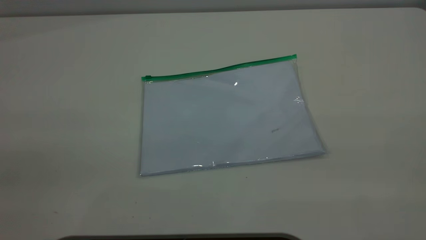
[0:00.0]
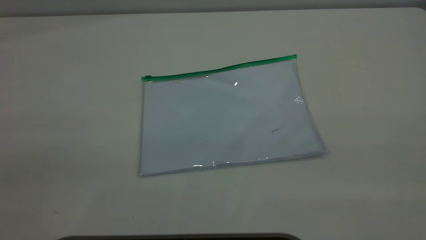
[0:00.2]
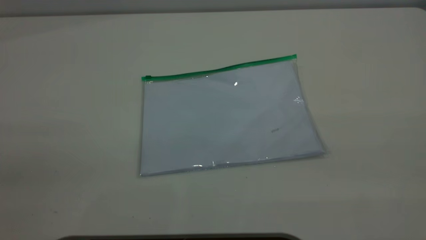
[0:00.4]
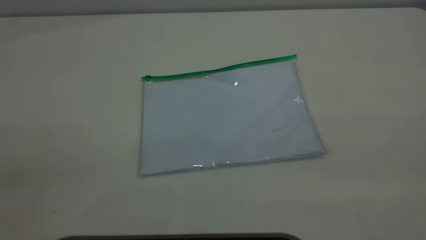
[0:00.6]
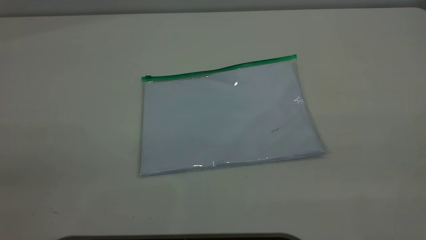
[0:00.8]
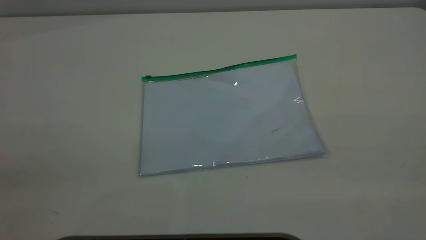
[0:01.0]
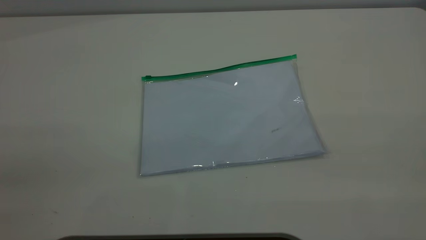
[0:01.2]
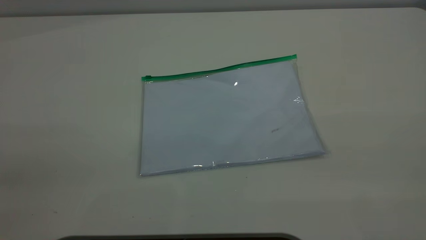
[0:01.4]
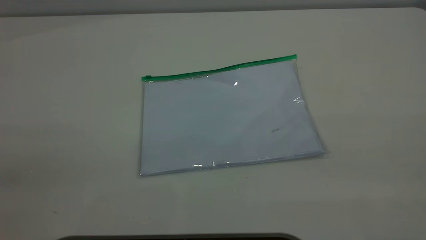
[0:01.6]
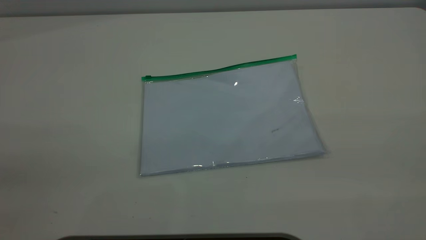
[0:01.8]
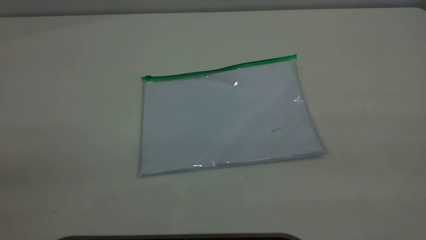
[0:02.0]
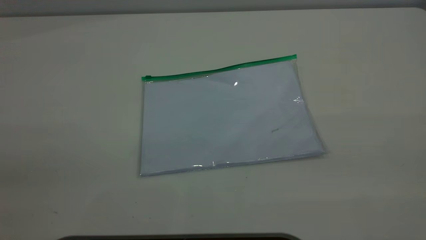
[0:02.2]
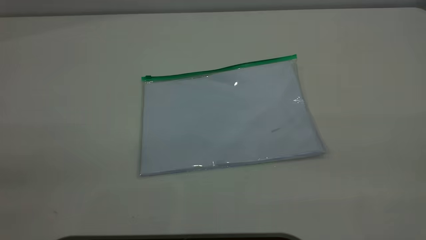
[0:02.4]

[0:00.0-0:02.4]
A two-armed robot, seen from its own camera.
0:01.2 to 0:02.4: The two grippers keep their place.

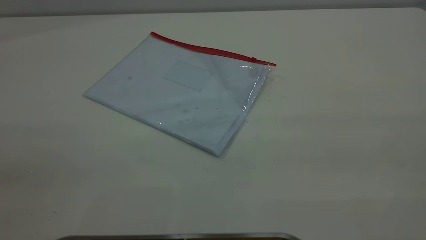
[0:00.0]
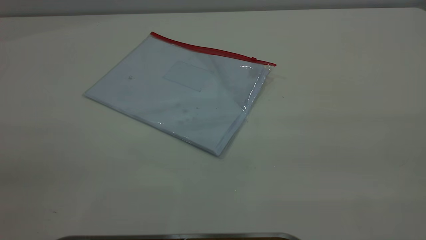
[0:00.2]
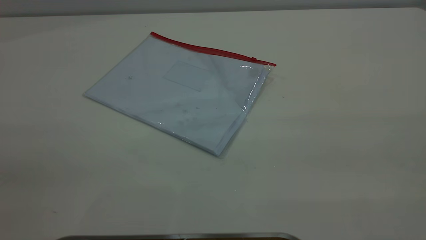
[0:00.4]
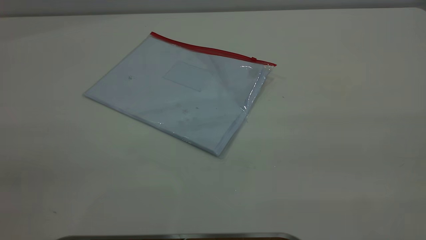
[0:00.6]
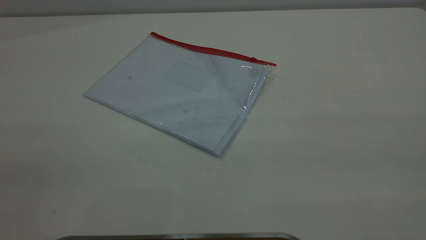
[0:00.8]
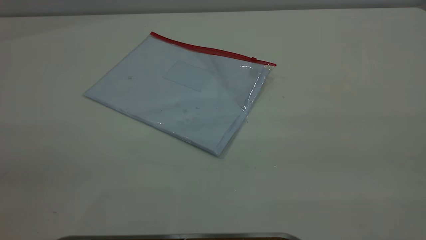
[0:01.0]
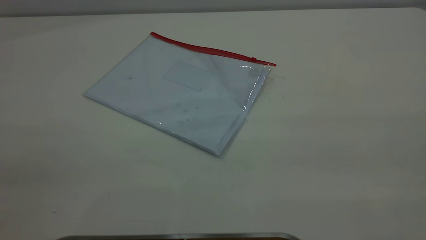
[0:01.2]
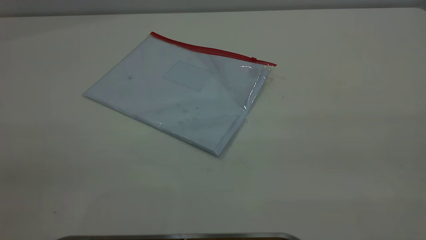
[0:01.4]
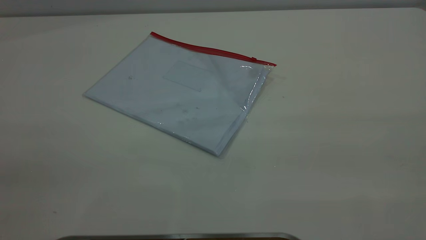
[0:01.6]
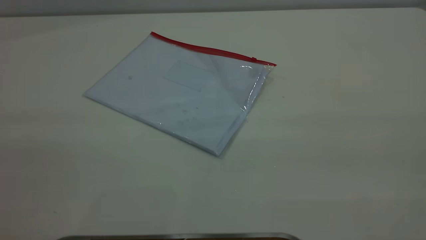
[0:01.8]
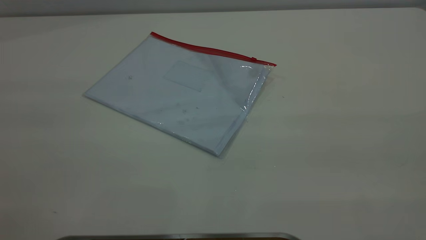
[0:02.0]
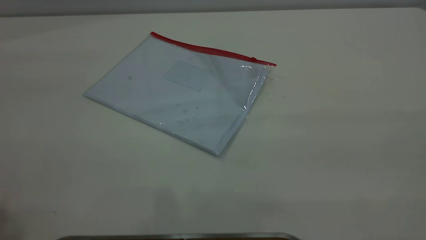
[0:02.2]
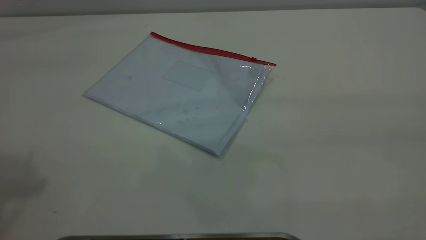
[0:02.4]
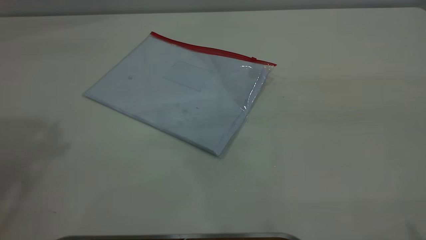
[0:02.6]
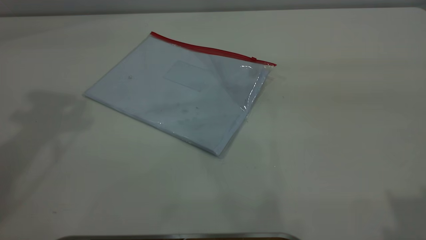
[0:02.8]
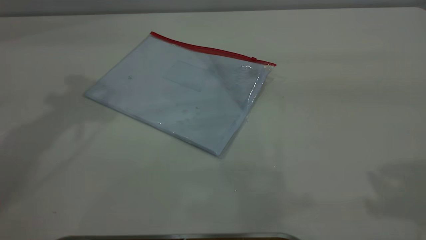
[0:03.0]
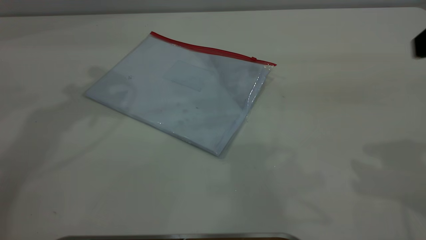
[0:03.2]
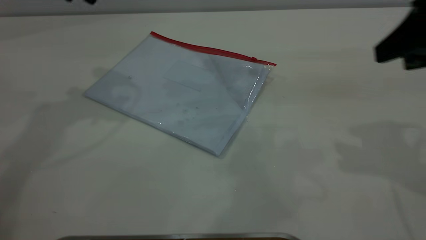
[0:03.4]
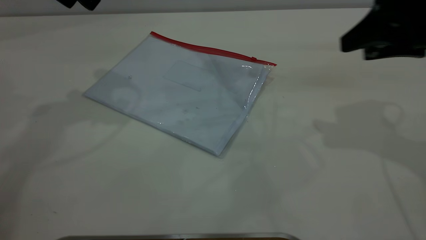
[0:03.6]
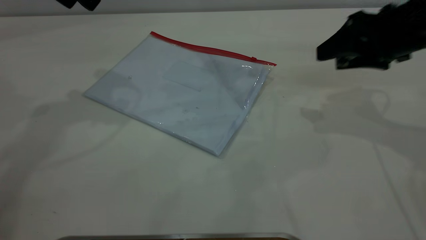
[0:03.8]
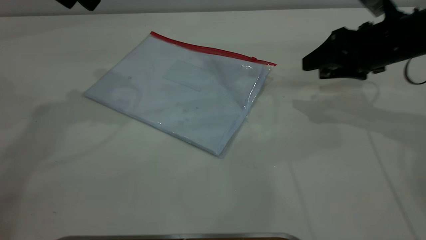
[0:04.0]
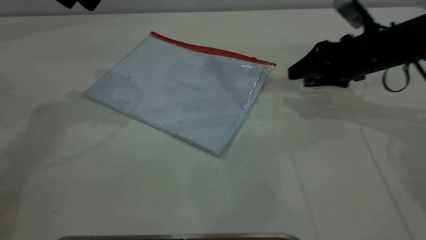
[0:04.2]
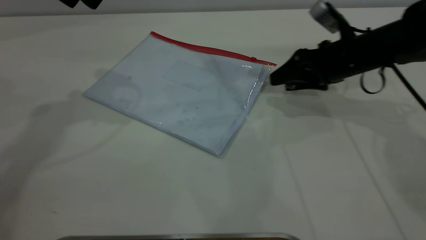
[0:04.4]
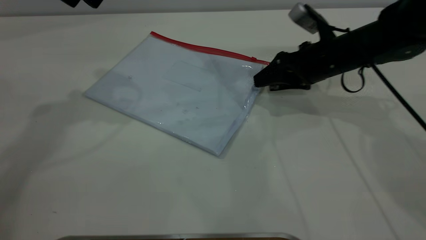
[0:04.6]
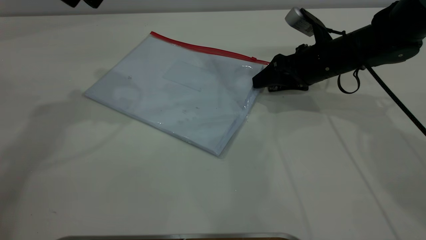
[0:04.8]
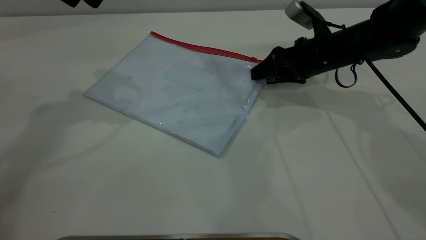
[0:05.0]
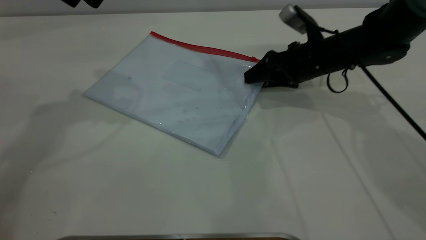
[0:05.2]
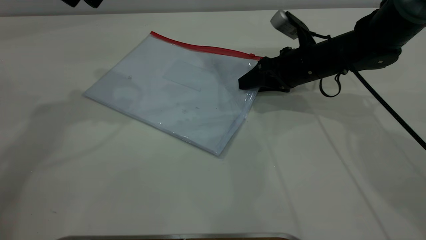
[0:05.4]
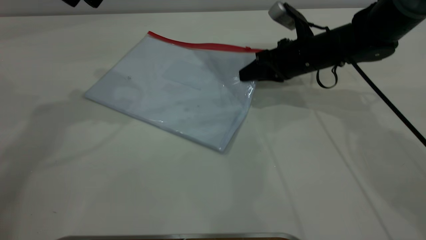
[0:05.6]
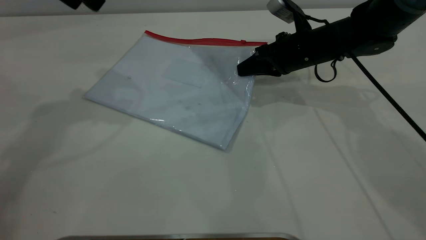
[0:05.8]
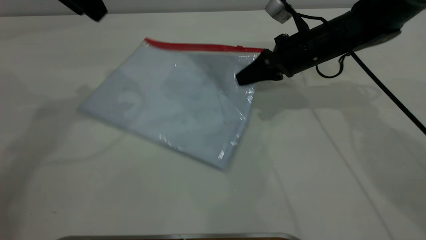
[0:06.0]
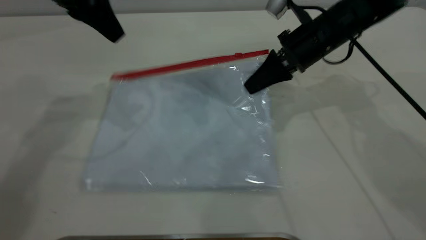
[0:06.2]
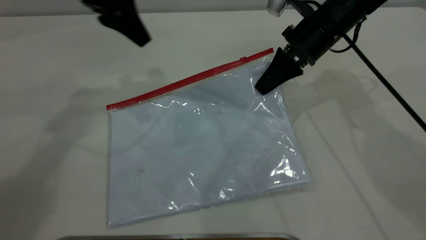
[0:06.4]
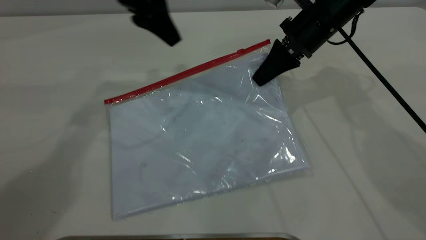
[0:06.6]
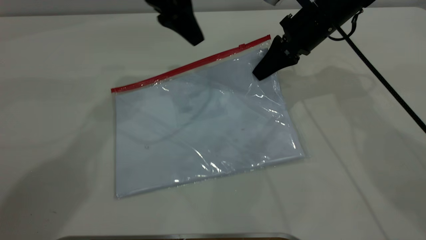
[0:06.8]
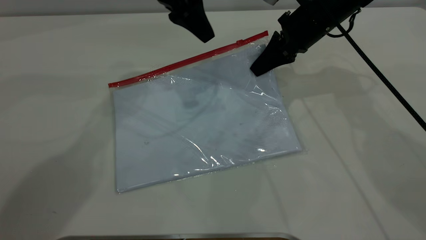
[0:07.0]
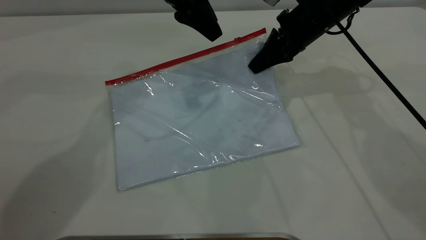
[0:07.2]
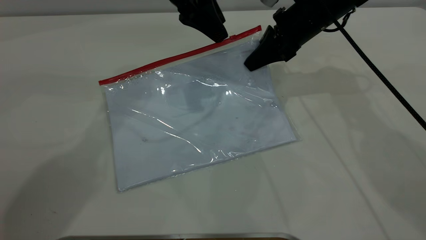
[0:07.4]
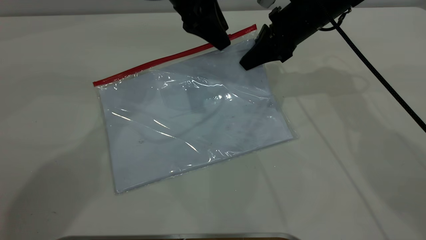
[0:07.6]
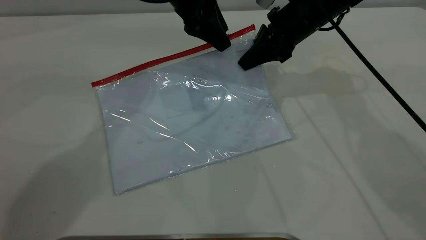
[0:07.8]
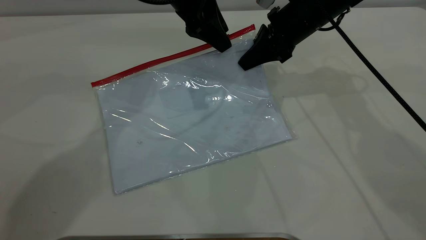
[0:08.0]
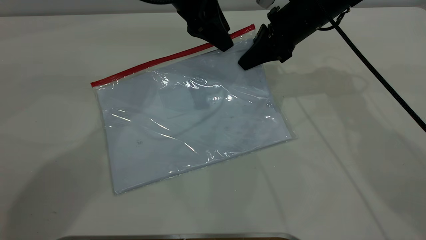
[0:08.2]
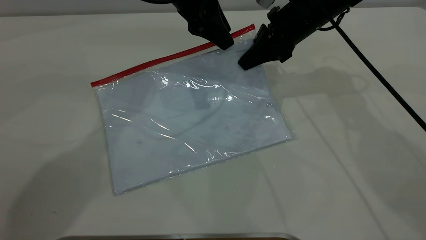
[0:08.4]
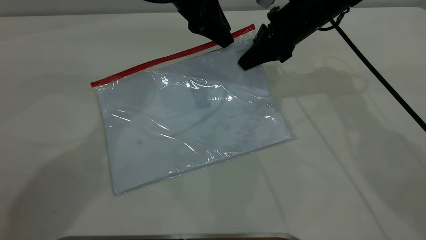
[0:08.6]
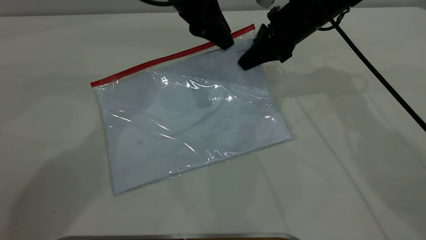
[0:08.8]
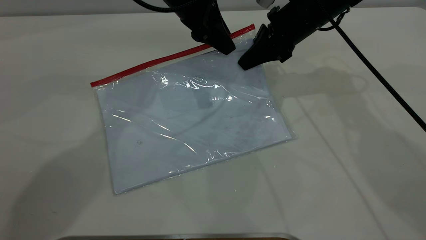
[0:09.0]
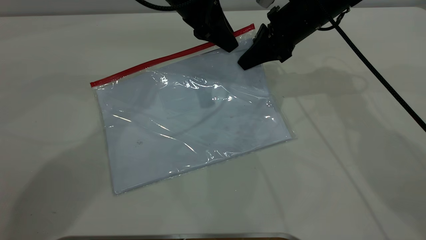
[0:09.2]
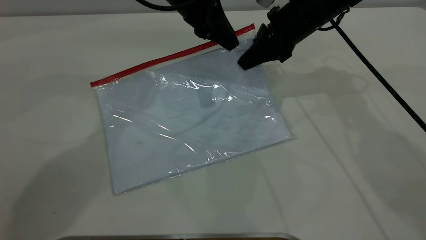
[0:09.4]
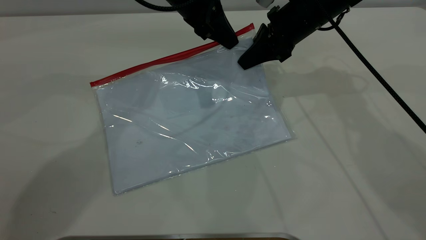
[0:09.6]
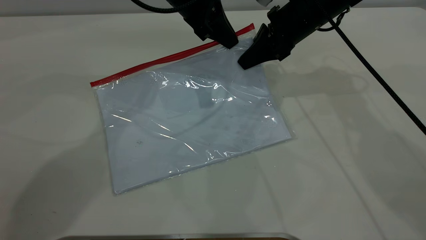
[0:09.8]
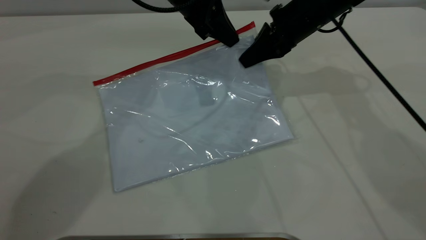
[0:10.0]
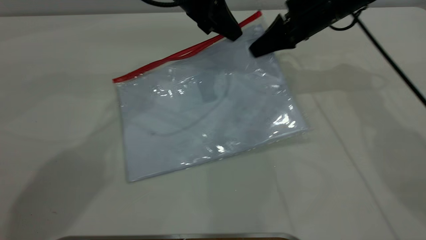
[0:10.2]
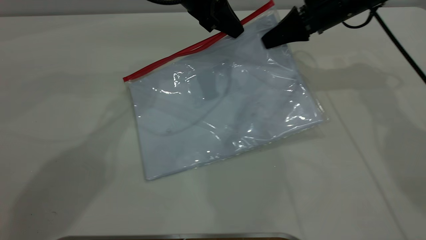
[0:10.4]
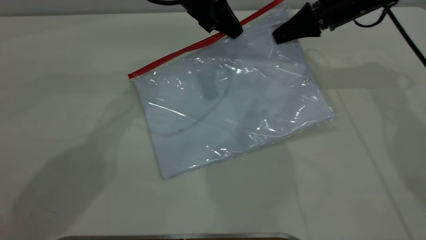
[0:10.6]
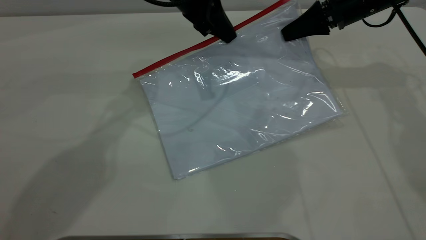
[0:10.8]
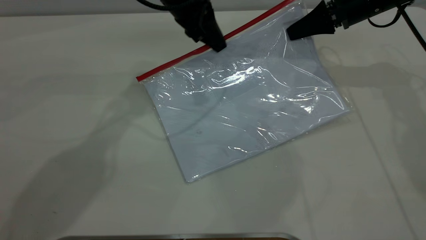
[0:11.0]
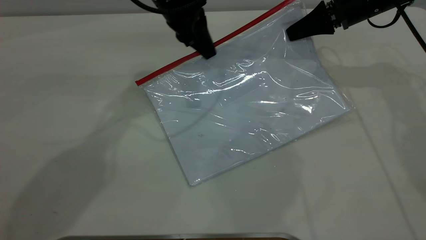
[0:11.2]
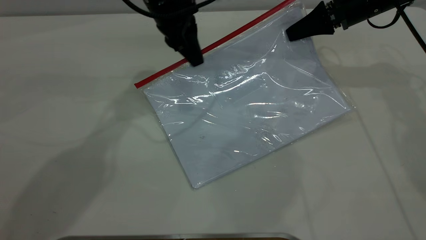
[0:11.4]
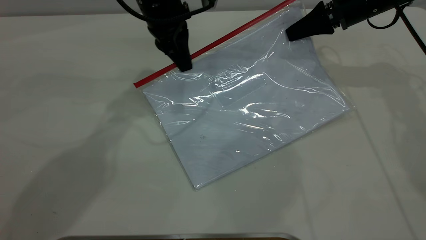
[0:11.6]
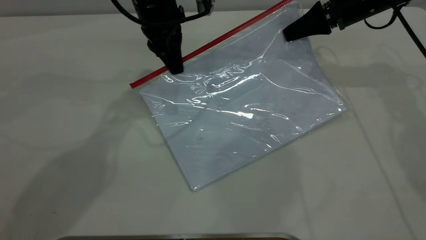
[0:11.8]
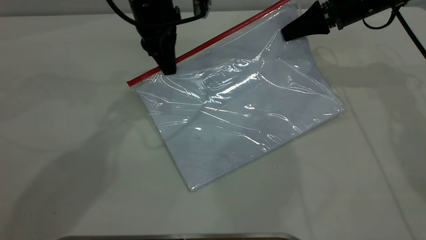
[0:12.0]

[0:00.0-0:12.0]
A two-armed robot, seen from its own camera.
Step, 0:00.0 to 0:06.2: Pick up the transparent plastic bag with the right gripper.
0:00.0 to 0:01.6: The two grippers keep their place.
0:03.0 to 0:04.4: The right gripper heads downward and forward, covering about 35 cm.
0:04.4 to 0:06.0: The right gripper shifts about 5 cm to the left, and closes.
0:06.0 to 0:07.6: The right gripper moves approximately 5 cm; the left gripper moves to the right and downward, approximately 15 cm.
0:07.6 to 0:09.0: There are only small adjustments of the grippers.
0:09.0 to 0:10.4: The left gripper closes up; the right gripper moves to the right, approximately 5 cm.

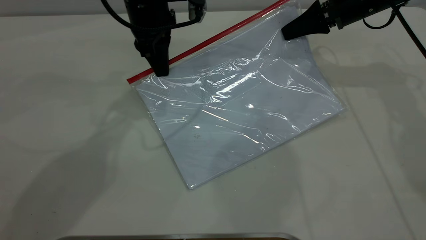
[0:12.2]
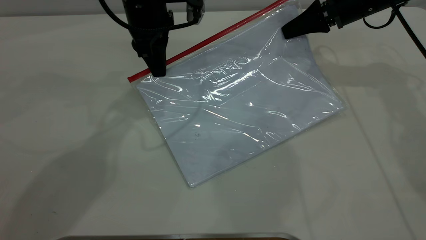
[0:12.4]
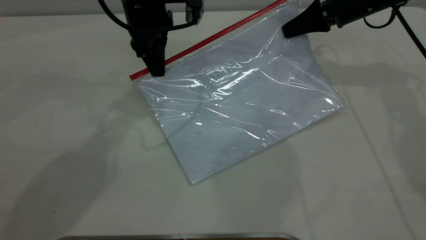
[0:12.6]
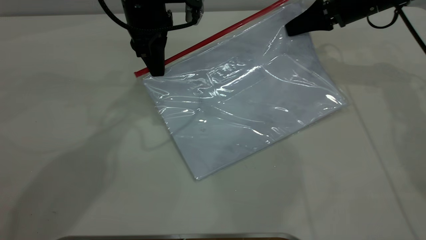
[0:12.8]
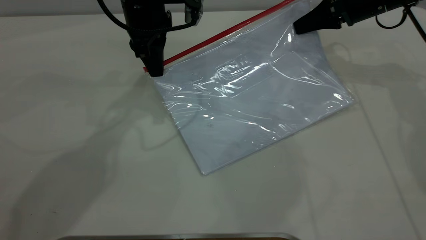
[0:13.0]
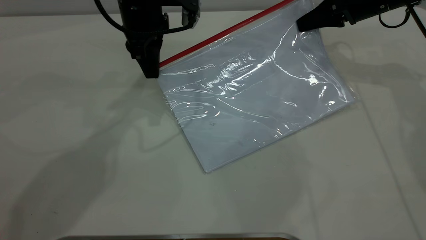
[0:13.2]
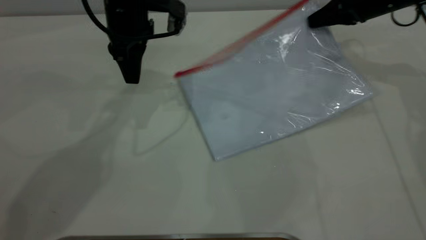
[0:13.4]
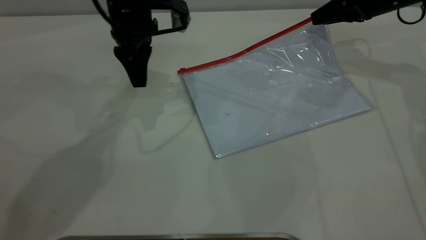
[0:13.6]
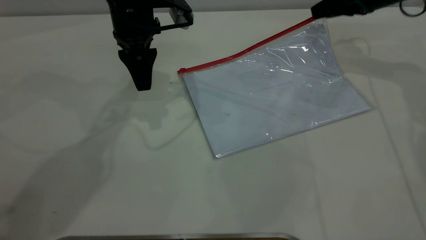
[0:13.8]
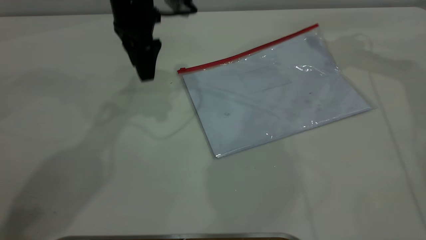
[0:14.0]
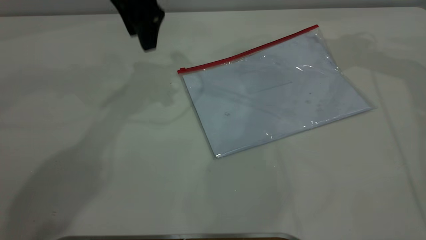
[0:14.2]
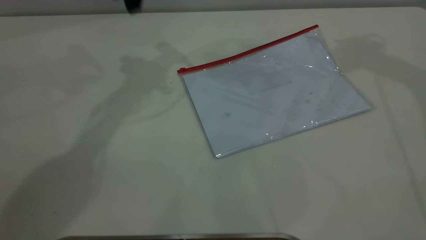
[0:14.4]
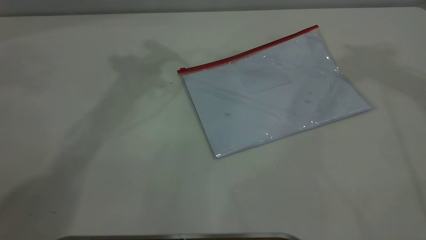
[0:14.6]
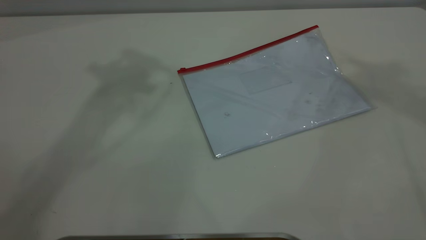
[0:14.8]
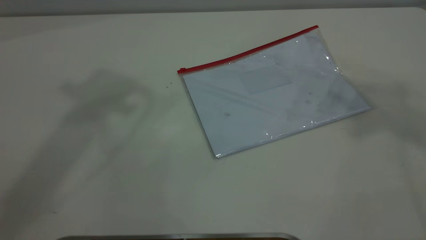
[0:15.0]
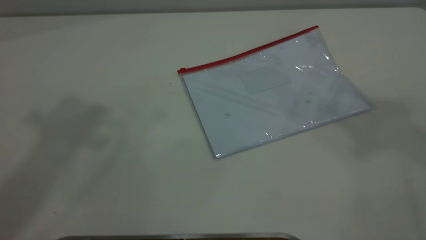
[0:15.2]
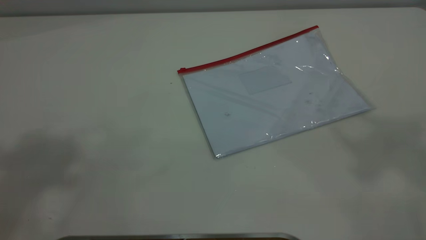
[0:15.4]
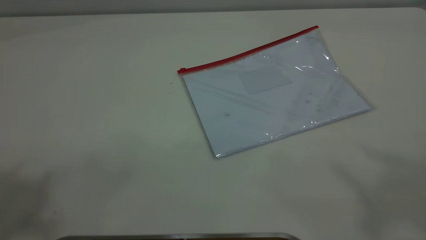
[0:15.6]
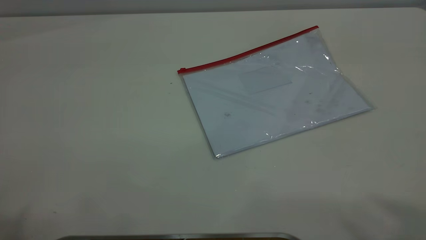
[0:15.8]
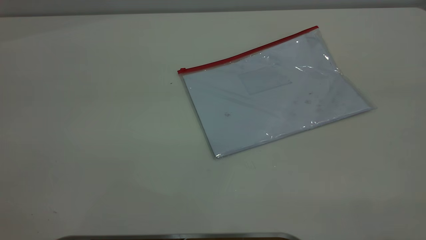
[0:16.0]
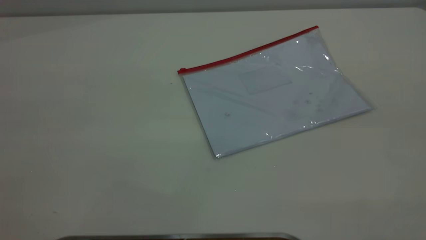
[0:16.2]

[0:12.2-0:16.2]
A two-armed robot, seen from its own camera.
Step, 0:13.4 to 0:14.8: Place the transparent plastic bag.
0:12.2 to 0:13.6: The right gripper is displaced to the right by approximately 5 cm, and opens up; the left gripper opens up.
0:13.6 to 0:14.8: The two grippers go about 35 cm upward.
